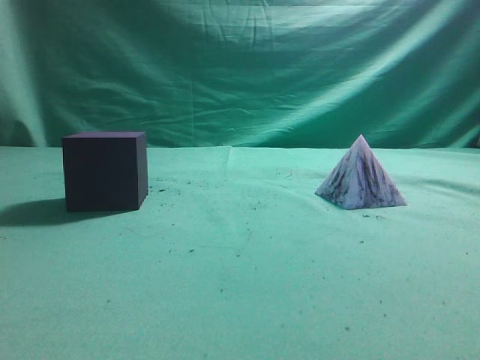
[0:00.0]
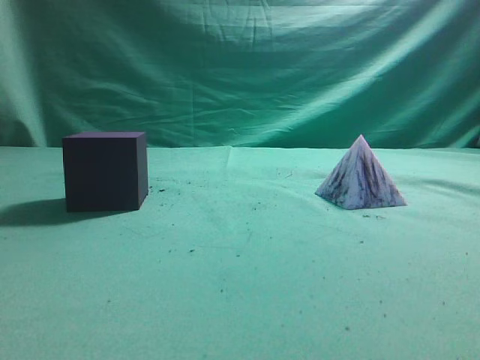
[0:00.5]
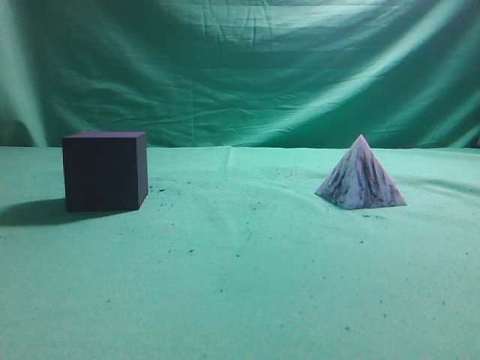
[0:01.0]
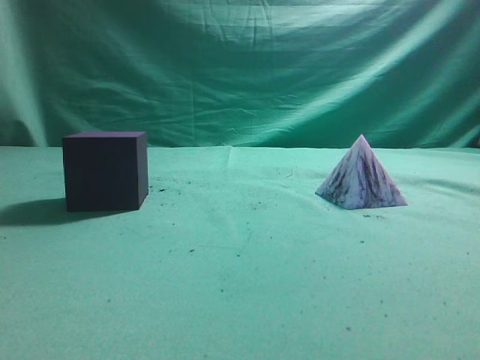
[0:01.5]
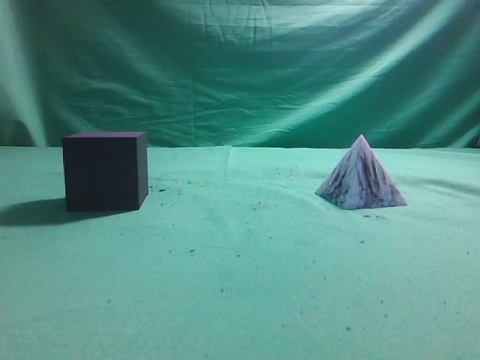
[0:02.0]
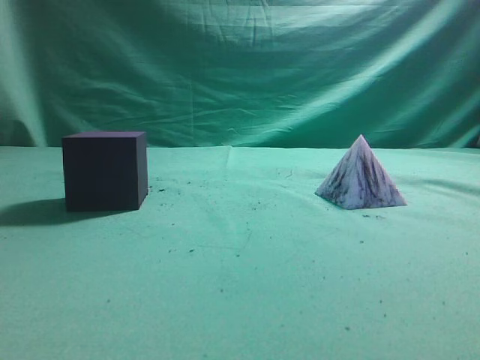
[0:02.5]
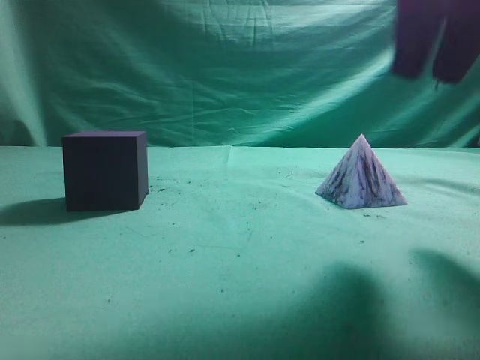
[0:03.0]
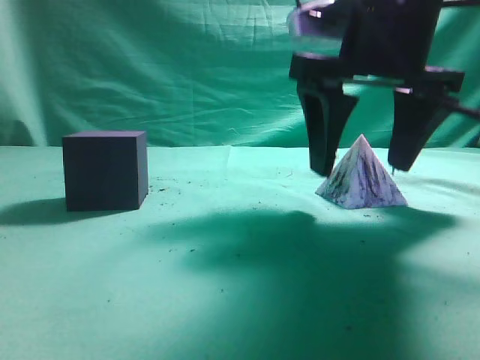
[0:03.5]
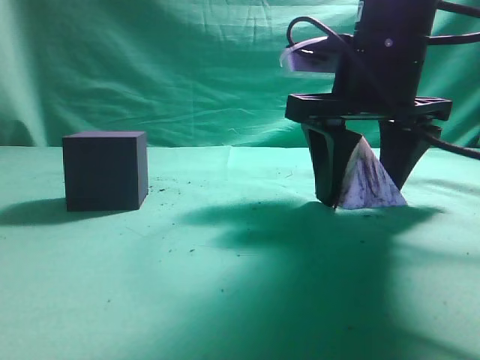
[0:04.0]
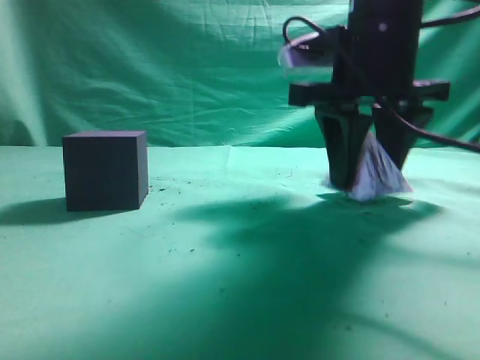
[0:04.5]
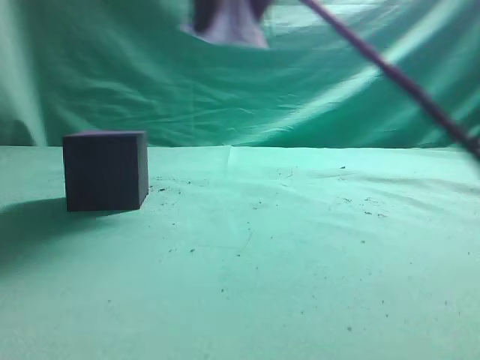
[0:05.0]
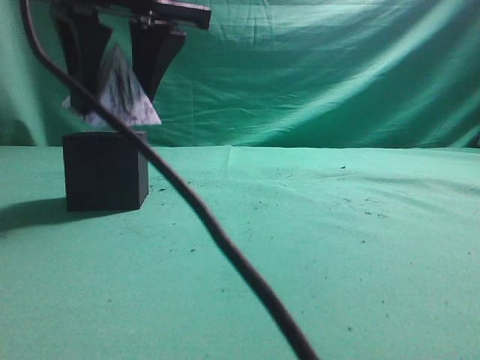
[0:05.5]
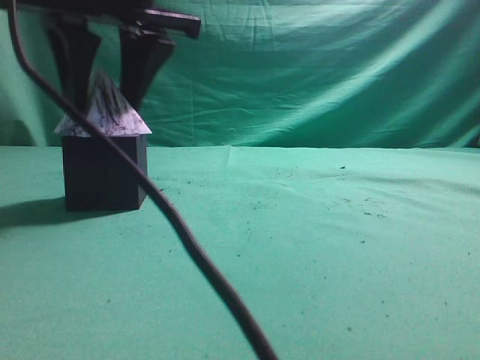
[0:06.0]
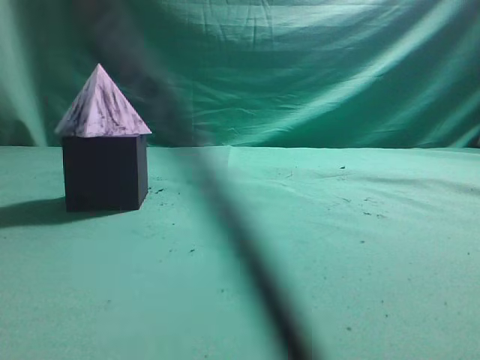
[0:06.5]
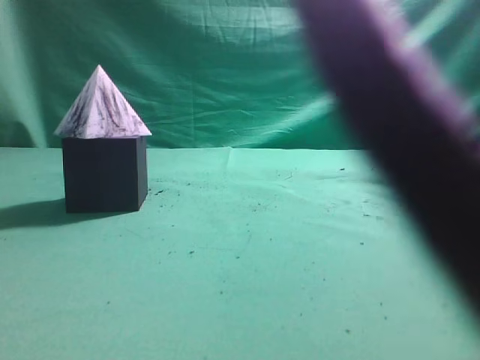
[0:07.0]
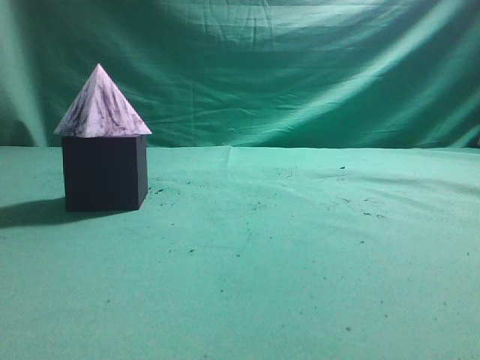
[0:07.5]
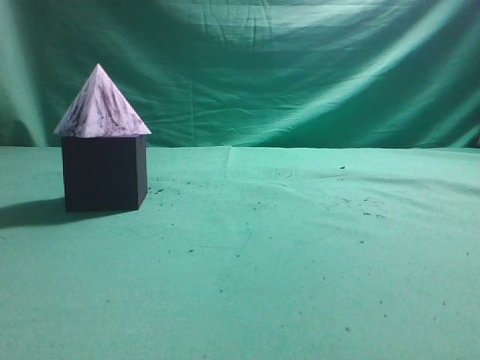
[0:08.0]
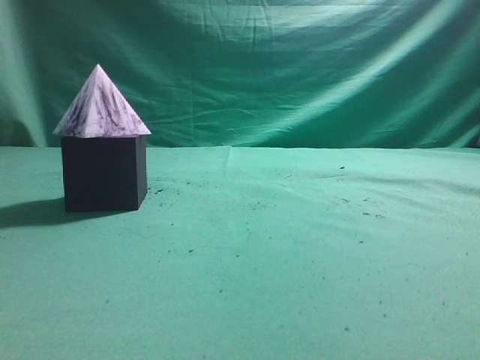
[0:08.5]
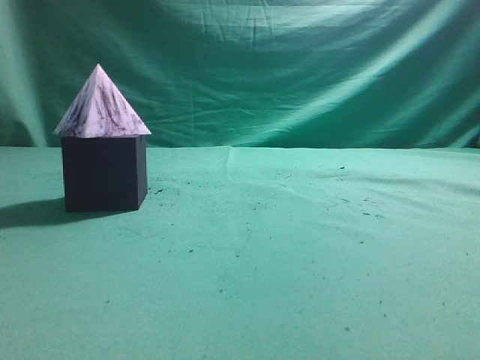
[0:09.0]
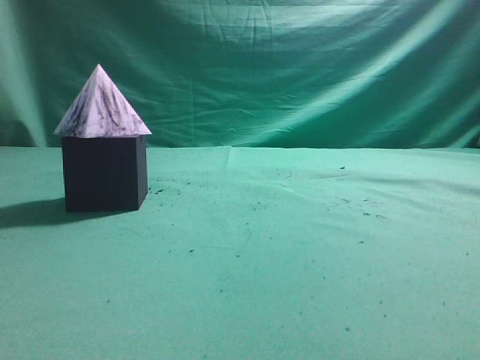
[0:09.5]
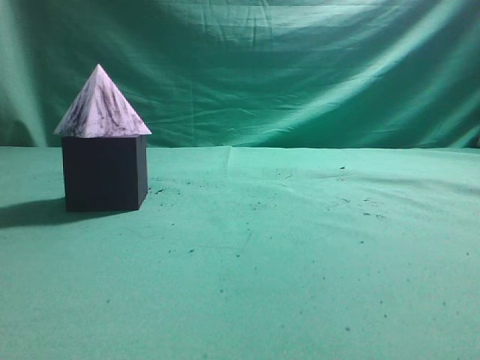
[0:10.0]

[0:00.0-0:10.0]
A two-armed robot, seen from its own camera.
Task of the whole recording: pick up the square pyramid from the table and place it on the cube block.
Step, 0:00.0 to 0:04.5: Grasp the triangular block.
Step, 0:05.0 to 0:06.0: Place the block onto the cube-shaped block.
0:02.0 to 0:04.0: The right gripper goes approximately 30 cm forward, to the left and downward, and opens up.
0:04.0 to 0:06.0: The right gripper goes approximately 20 cm to the left.
0:06.0 to 0:08.0: The right gripper moves to the right, backward and upward, roughly 40 cm, and closes its fingers.
